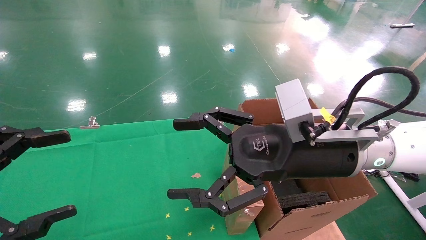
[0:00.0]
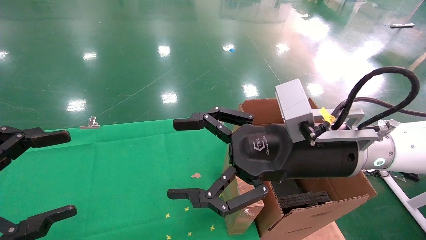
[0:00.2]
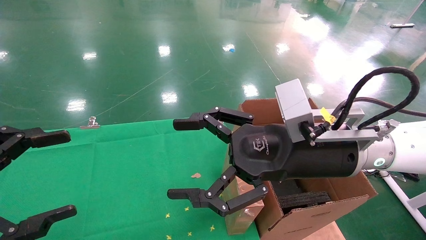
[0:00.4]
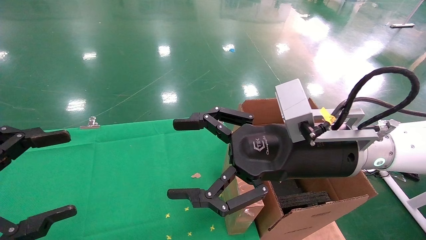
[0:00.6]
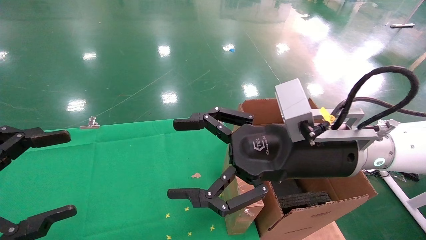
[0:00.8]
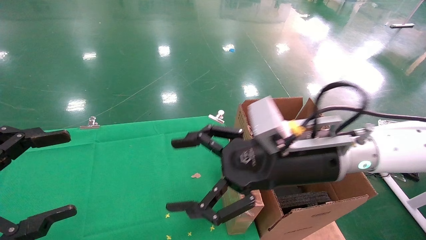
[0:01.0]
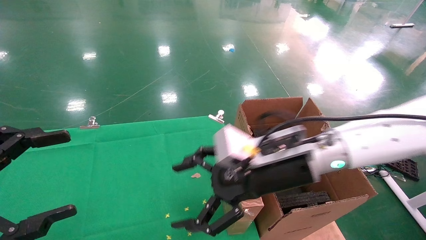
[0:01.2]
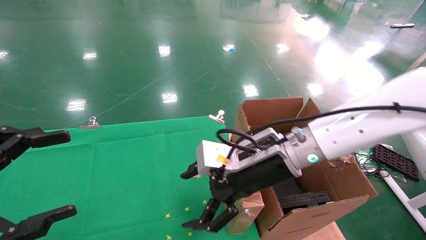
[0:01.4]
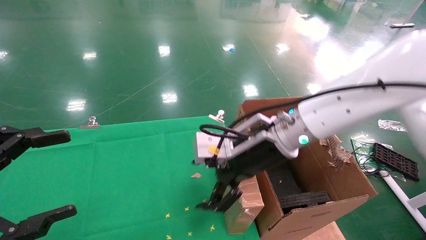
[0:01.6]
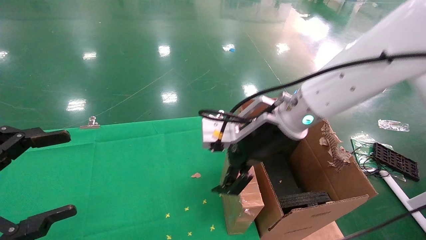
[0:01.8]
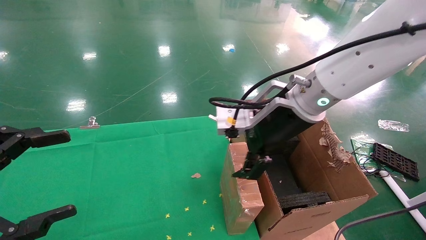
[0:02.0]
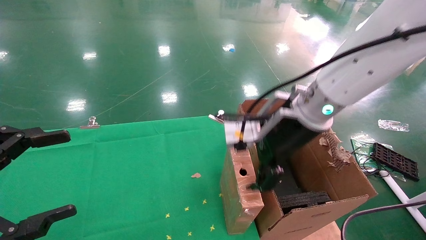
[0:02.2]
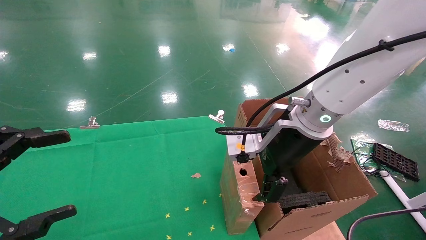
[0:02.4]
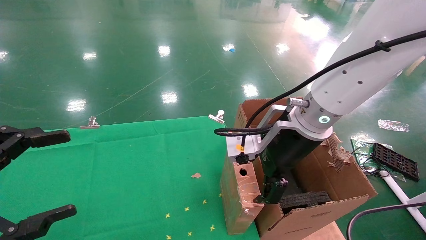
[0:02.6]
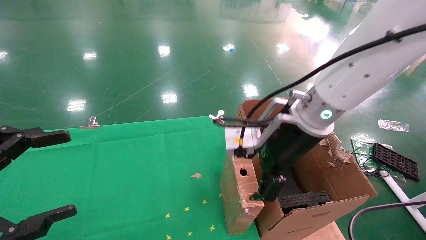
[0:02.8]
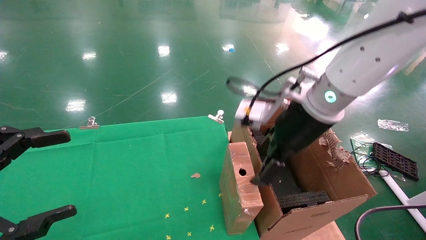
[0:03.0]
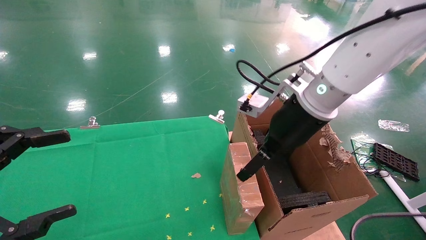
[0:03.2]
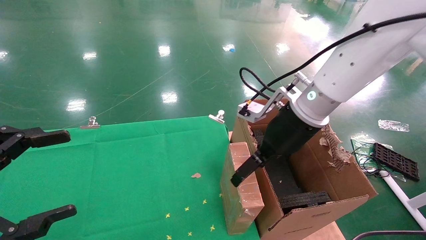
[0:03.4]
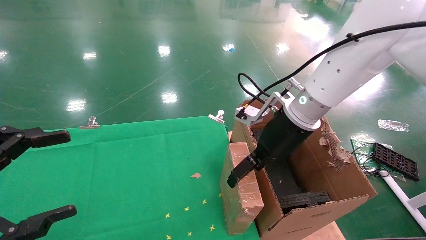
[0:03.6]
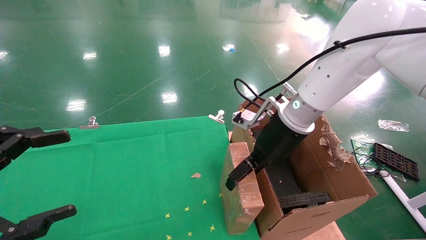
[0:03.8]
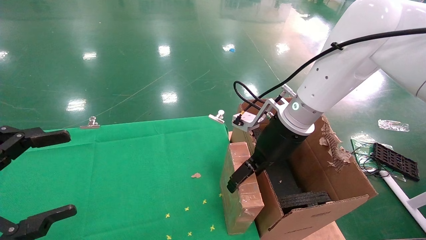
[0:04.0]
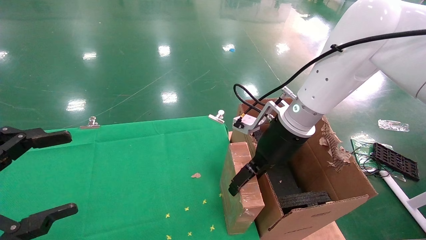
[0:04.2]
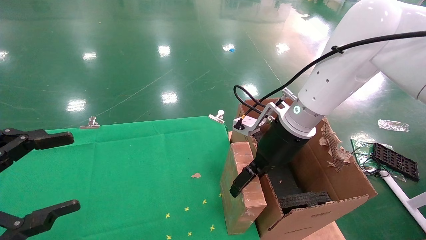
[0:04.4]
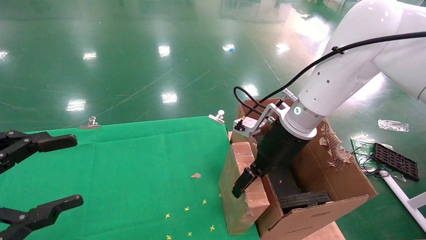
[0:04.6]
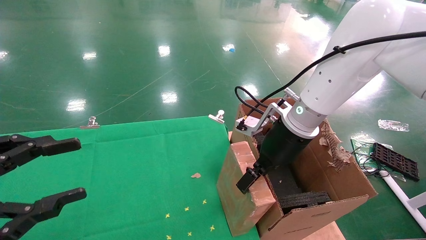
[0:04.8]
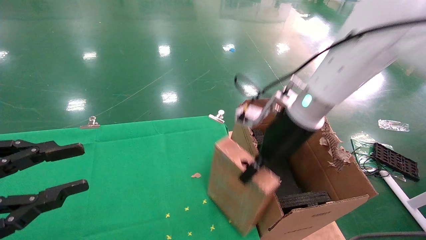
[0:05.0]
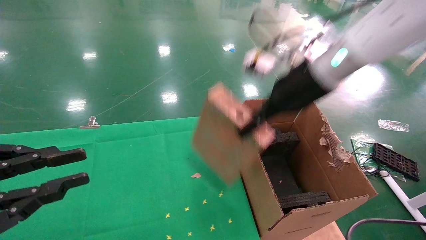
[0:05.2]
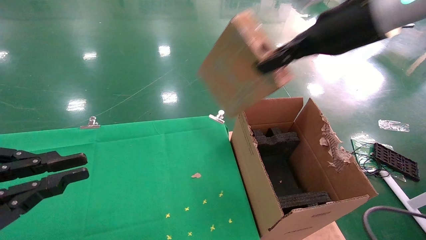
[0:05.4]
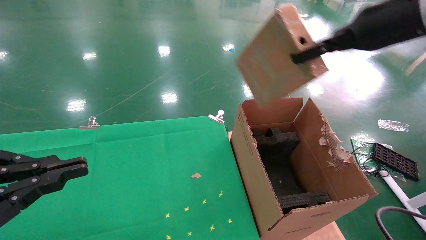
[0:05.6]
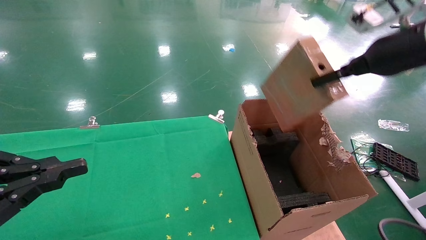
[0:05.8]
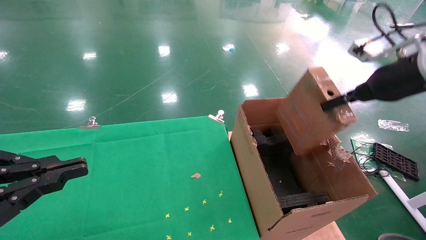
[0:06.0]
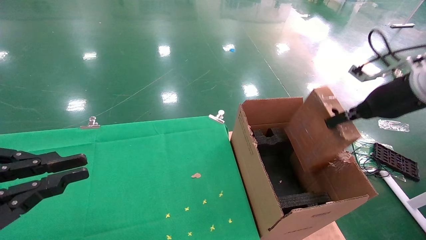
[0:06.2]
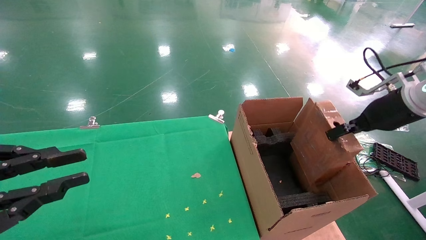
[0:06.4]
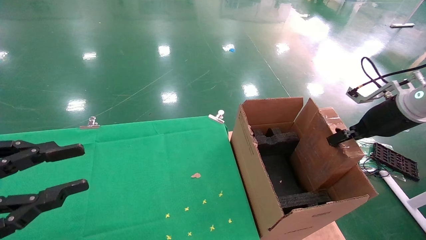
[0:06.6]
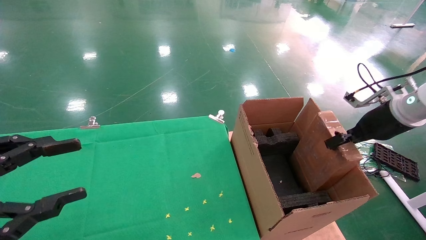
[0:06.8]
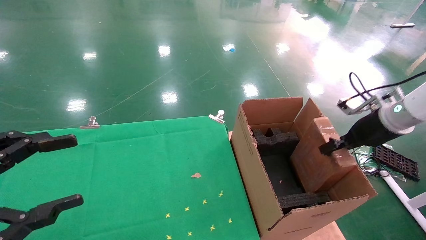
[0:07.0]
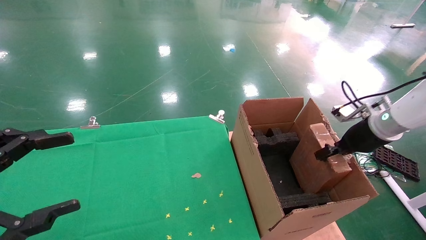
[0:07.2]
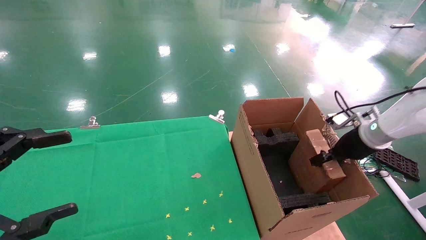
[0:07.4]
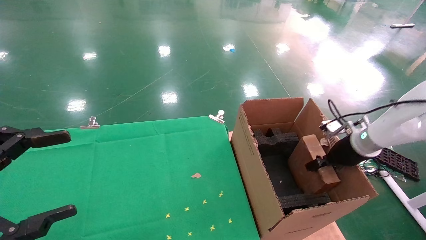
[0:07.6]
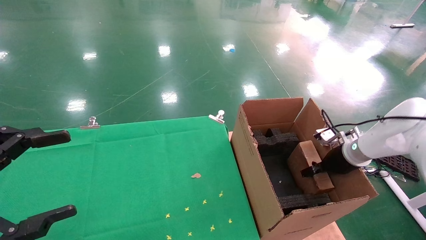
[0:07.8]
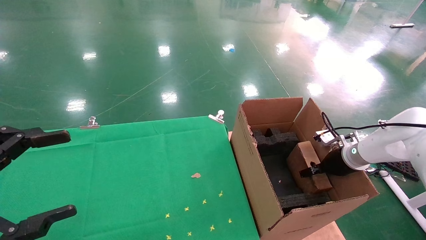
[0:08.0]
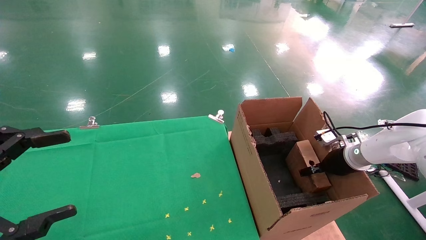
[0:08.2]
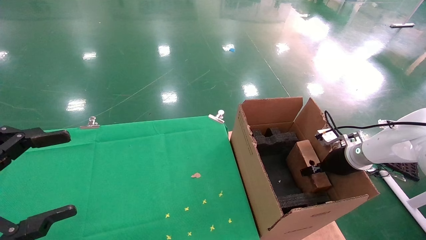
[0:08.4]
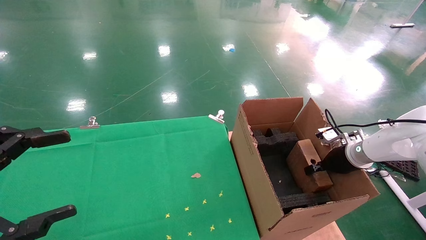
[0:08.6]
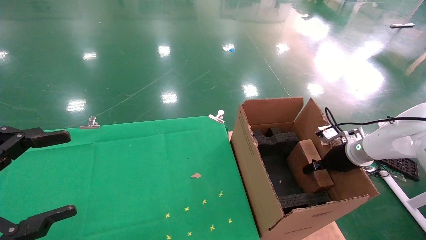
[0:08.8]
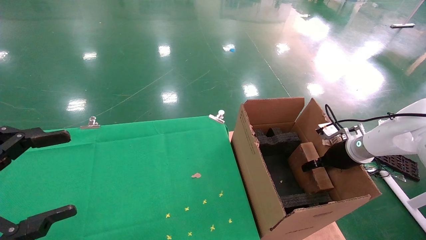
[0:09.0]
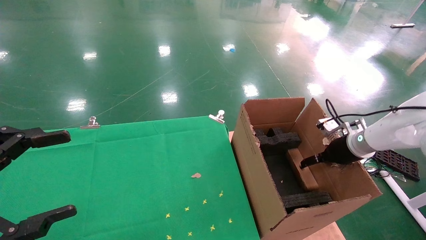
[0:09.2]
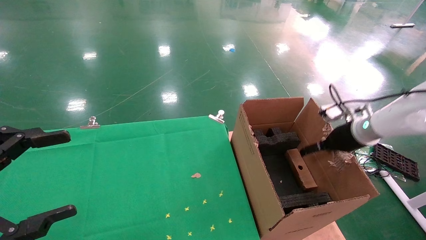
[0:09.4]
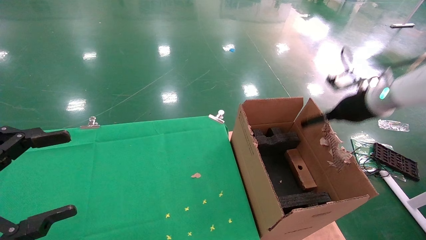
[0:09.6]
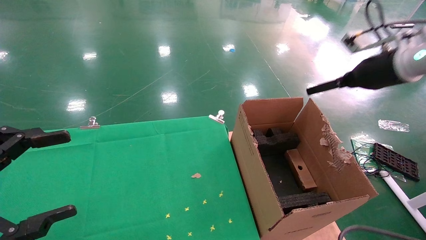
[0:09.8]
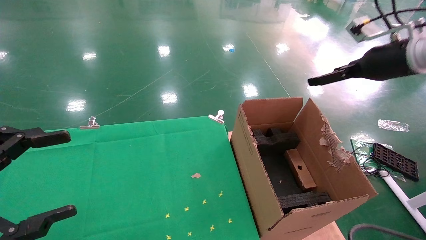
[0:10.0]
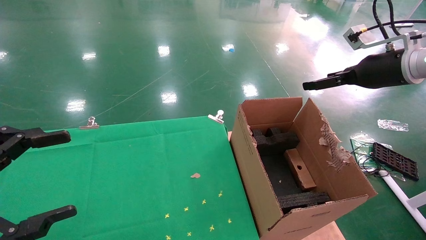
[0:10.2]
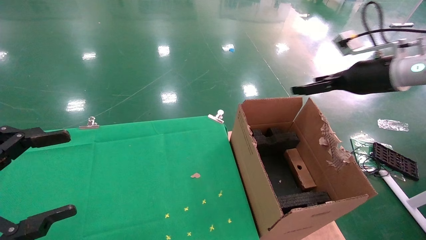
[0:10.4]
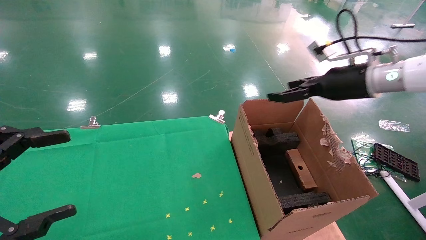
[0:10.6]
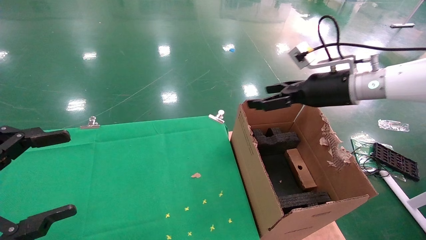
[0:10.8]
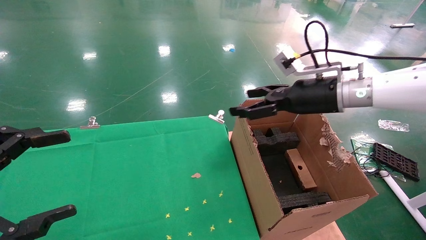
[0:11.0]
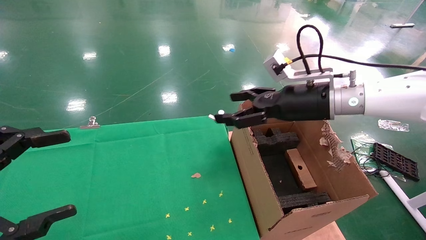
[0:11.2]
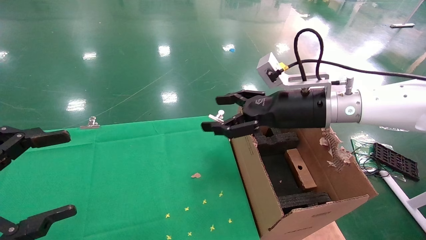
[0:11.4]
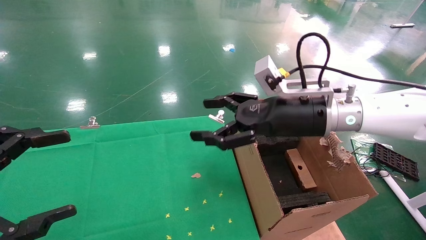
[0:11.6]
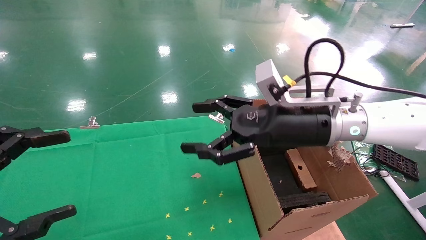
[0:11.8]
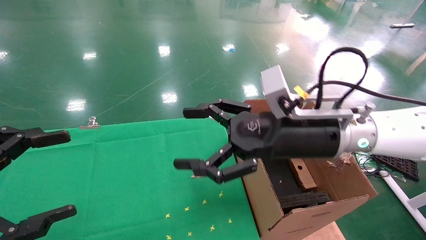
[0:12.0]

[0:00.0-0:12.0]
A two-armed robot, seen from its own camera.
Task of the whole recording: using a robotic arm to pick up a cardboard box and palace it the carton.
Step, 0:01.0 to 0:05.2: Pick up the mouse and the power cord paper box.
Step, 0:05.4 to 0:10.0: Place the mouse and the power cord paper box into the container.
0:00.0 to 0:01.6: The right gripper travels forward by about 5 cm.
0:01.6 to 0:03.0: The right gripper moves some 5 cm.
0:03.0 to 0:04.4: The right gripper shifts some 5 cm downward.
0:04.4 to 0:06.0: The right gripper heads to the right and upward, covering approximately 25 cm, and closes. The left gripper closes.
0:06.0 to 0:07.6: The left gripper opens its fingers. Meanwhile the right gripper moves downward, roughly 20 cm.
0:07.6 to 0:09.0: The right gripper opens up.
0:09.0 to 0:10.4: The right gripper is displaced upward by approximately 20 cm, and opens up.
0:10.4 to 0:12.0: The right gripper goes roughly 20 cm to the left and backward.

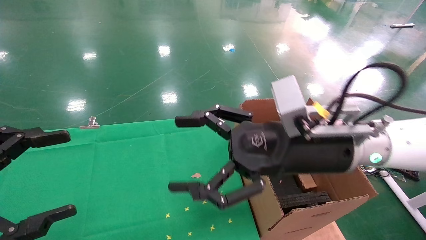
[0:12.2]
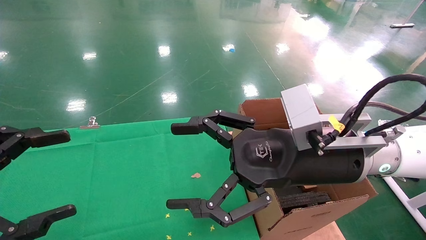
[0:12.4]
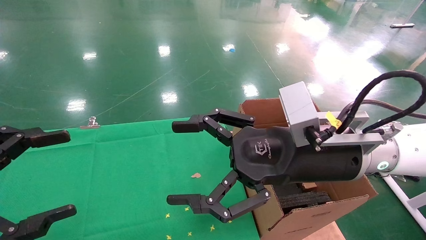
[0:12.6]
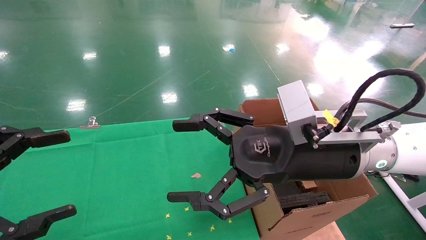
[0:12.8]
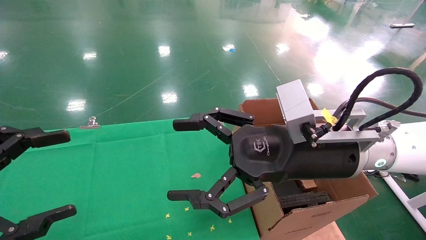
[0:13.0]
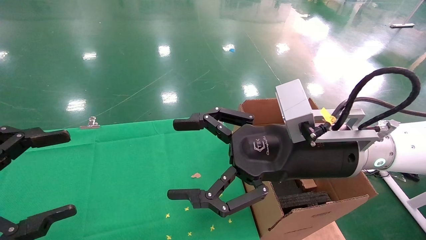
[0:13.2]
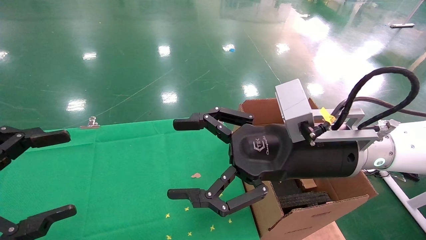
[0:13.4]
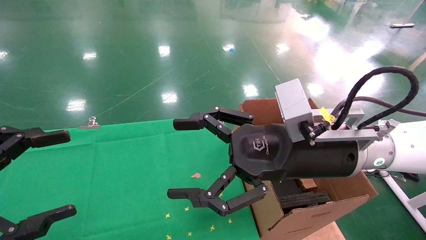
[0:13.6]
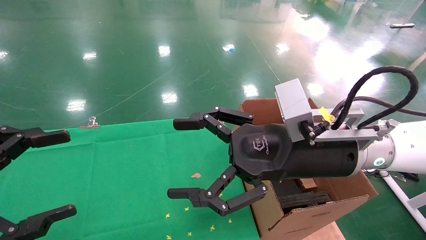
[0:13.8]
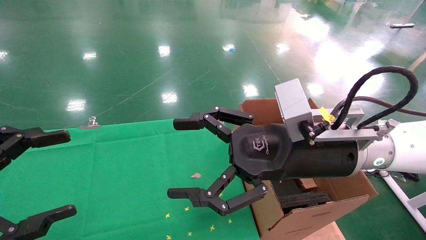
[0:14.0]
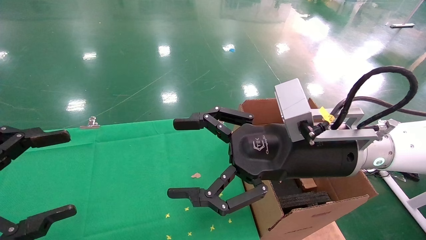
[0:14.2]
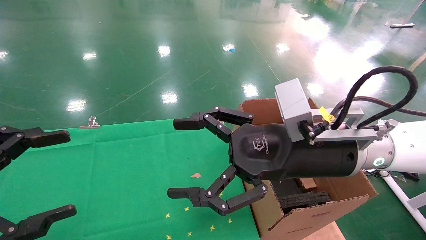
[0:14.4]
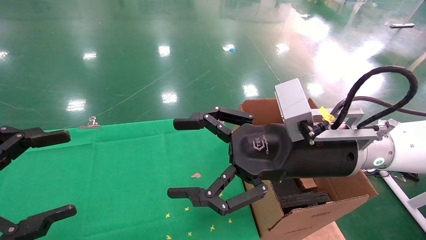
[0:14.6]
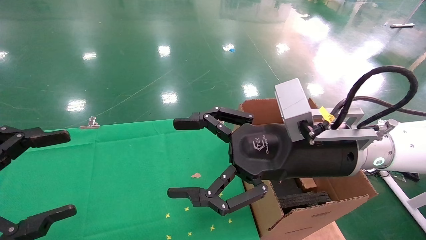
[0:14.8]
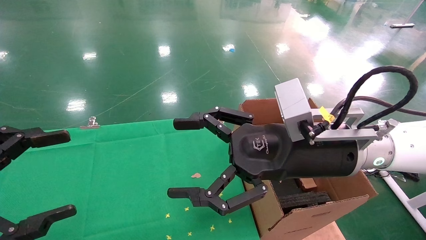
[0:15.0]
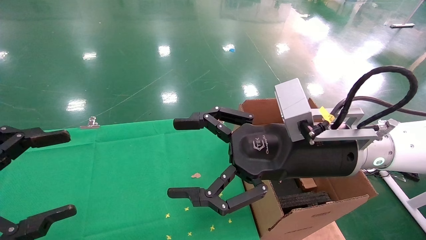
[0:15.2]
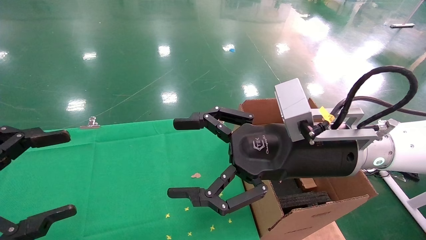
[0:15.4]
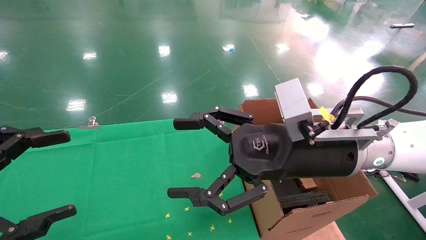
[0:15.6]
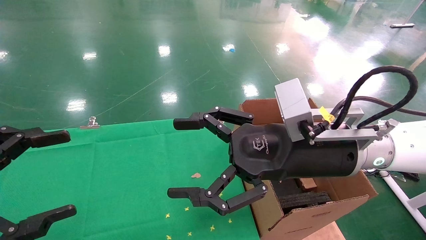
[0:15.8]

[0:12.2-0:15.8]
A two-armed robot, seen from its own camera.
Task of the whole recording: using a robotic arm to pick up a cardboard box and palace it the carton.
0:12.2 to 0:14.0: The grippers stay close to where they were, moving slightly.
0:14.0 to 0:15.8: Both grippers stay about where they are.
